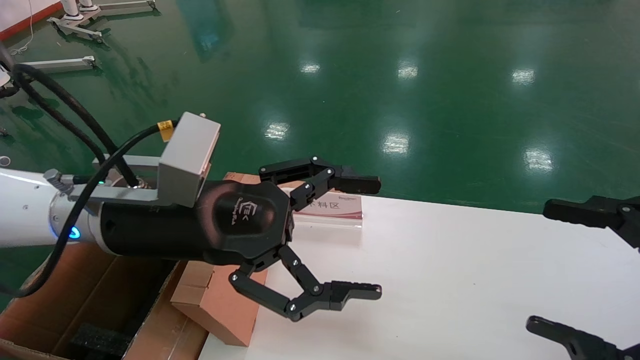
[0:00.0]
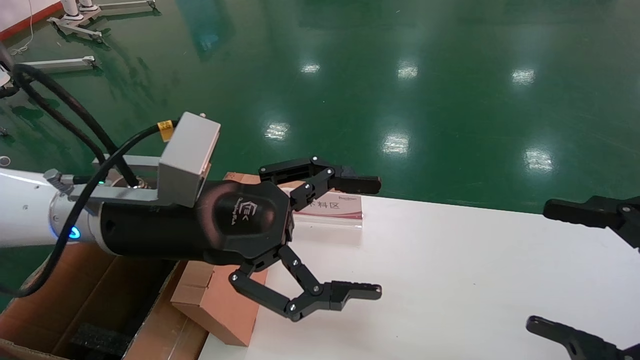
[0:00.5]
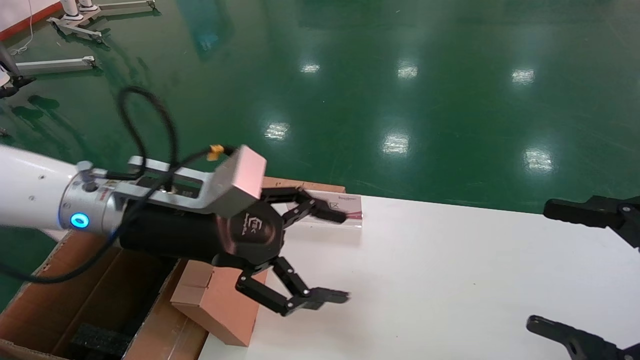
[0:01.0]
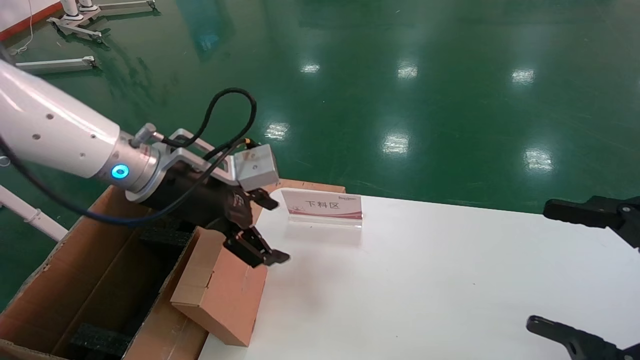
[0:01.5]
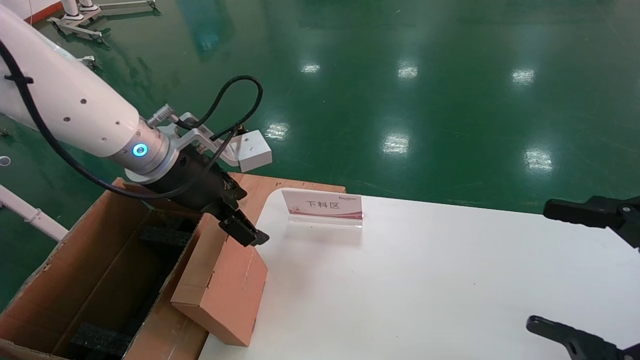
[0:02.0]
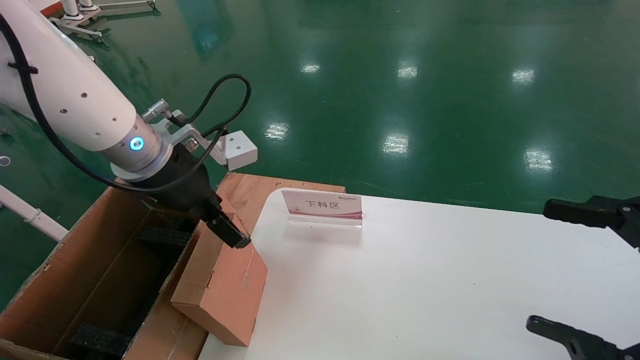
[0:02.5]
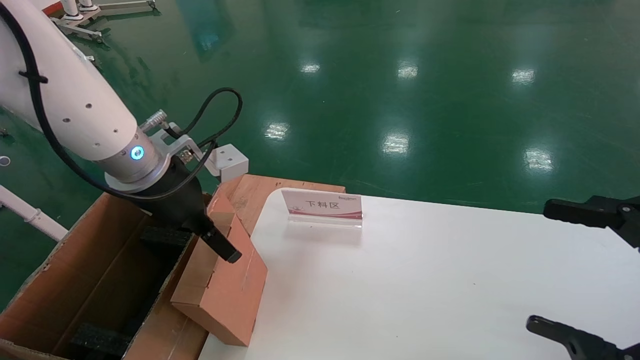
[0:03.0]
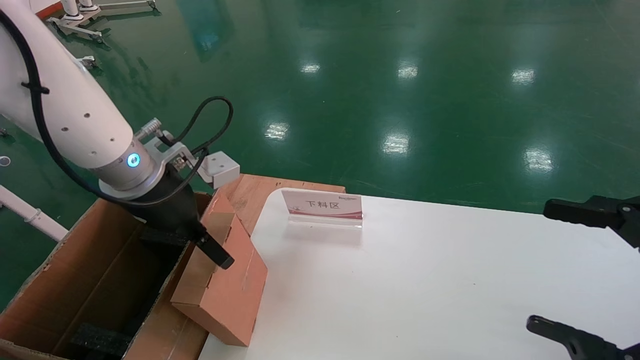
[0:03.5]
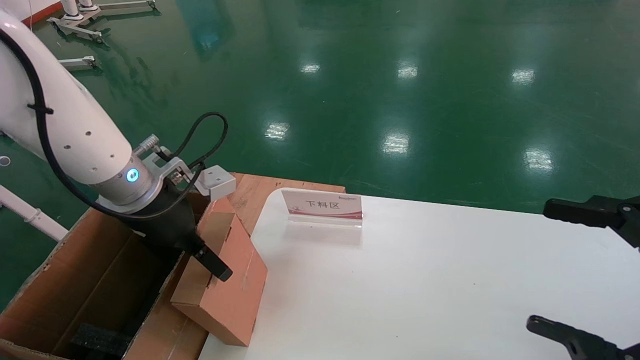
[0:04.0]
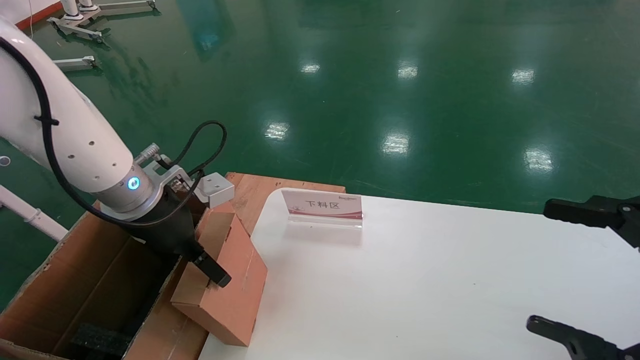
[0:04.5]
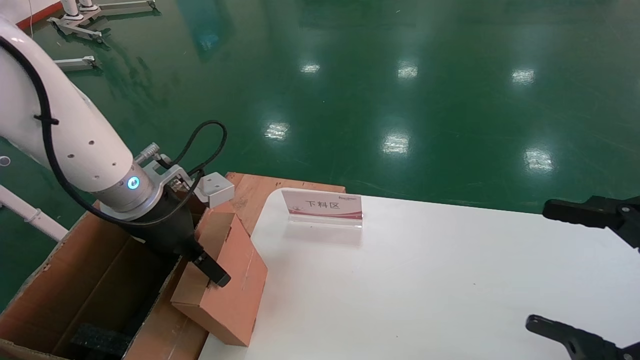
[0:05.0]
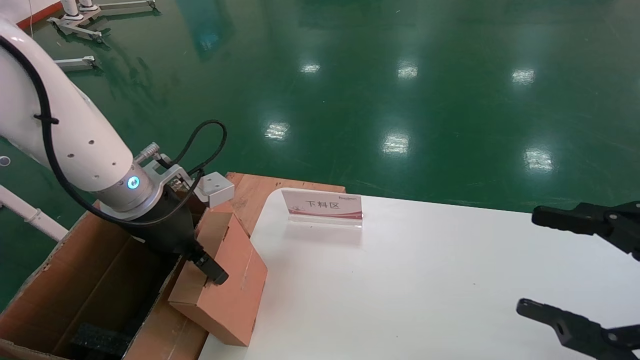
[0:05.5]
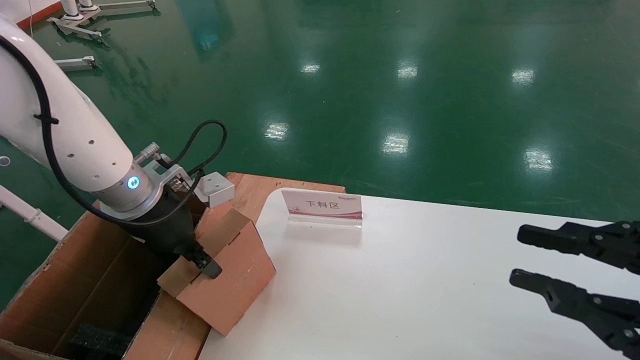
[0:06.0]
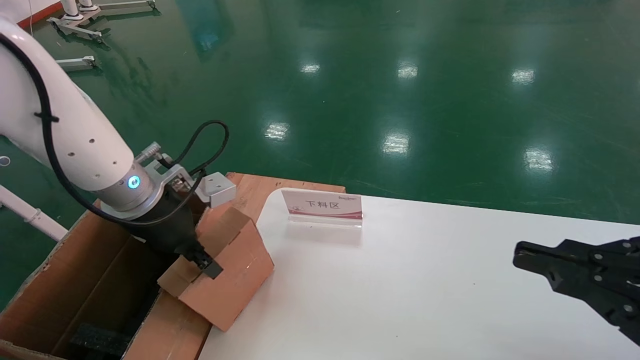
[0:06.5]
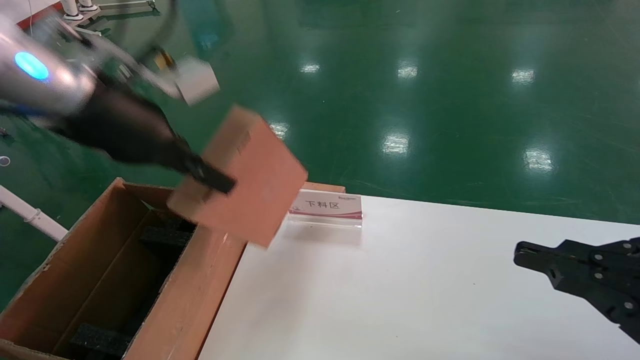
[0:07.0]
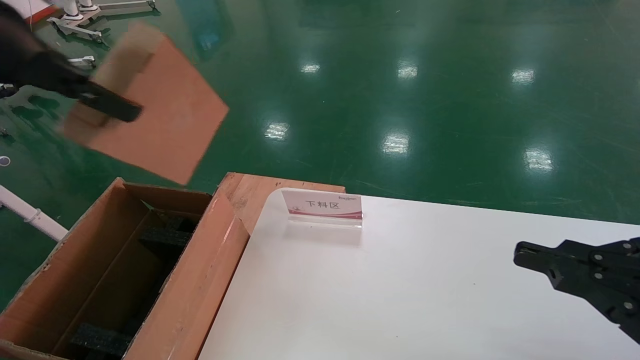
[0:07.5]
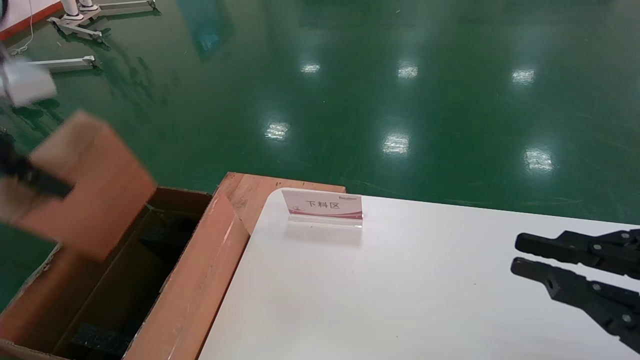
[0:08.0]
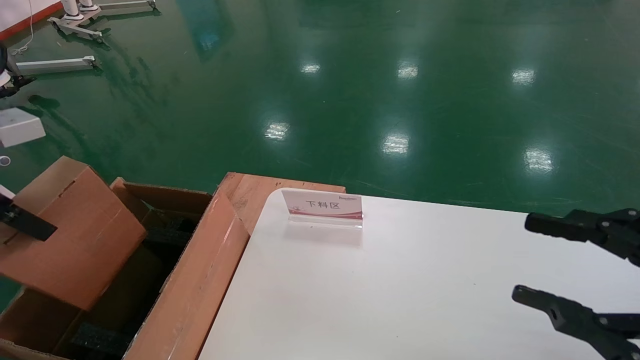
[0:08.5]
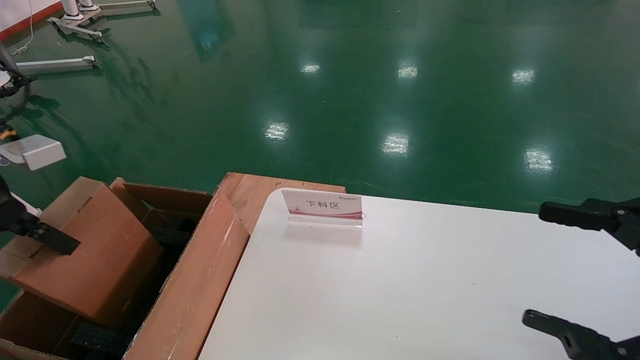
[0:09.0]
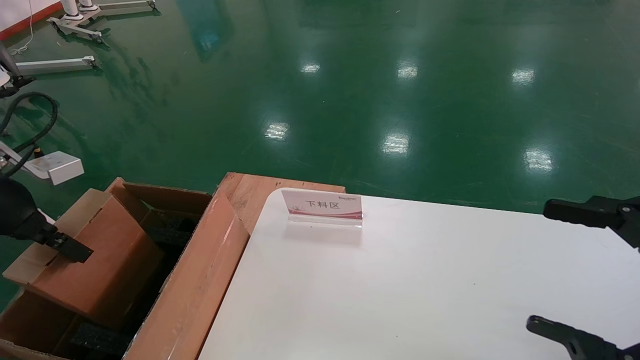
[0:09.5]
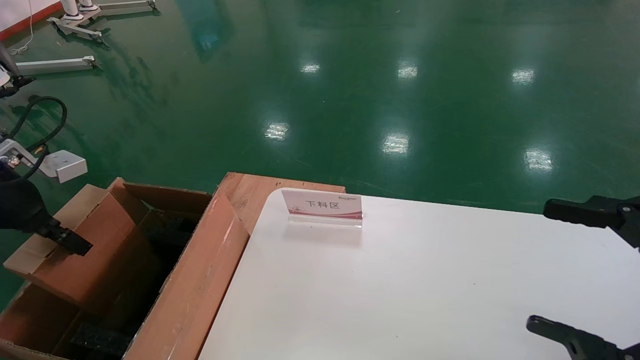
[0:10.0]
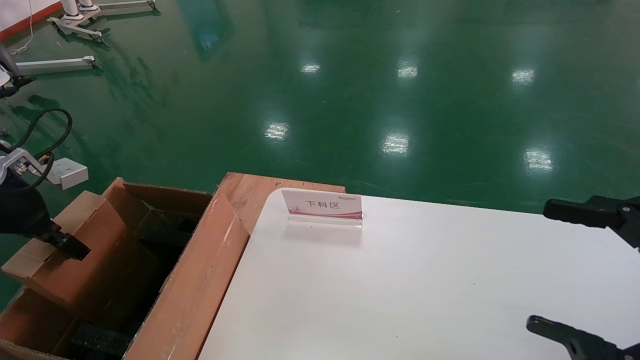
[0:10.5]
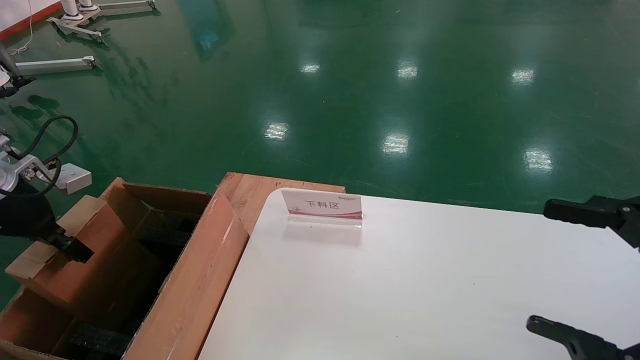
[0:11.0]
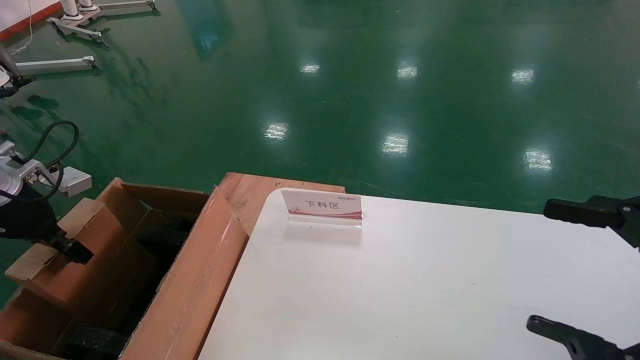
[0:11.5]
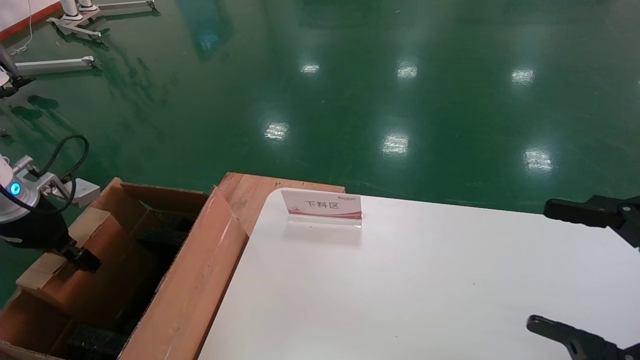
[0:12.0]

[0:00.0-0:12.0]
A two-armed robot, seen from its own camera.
Task of the whole recording: pick up the small cardboard box and load it into the large cardboard box.
Step, 0:01.0 to 0:06.0: Pick up the mouse and power cord box.
0:00.0 to 0:02.0: The left gripper is displaced forward by about 10 cm.
0:04.0 to 0:06.0: The left gripper closes its fingers. Meanwhile the right gripper closes its fingers.
0:06.0 to 0:08.0: The left gripper heads upward, to the left and backward, covering about 25 cm, and closes up.
0:08.0 to 0:10.0: The left gripper heads downward, to the left and forward, covering roughly 15 cm. Meanwhile the right gripper opens up.
0:10.0 to 0:12.0: The left gripper goes roughly 5 cm downward.

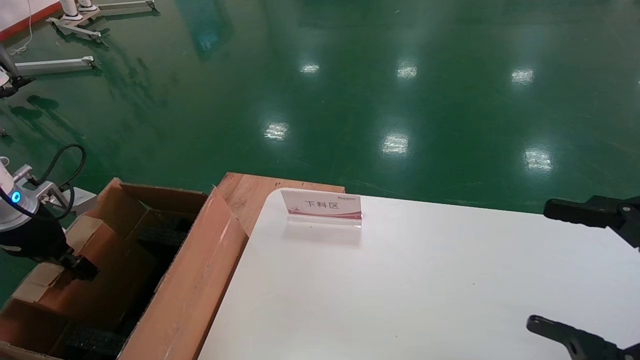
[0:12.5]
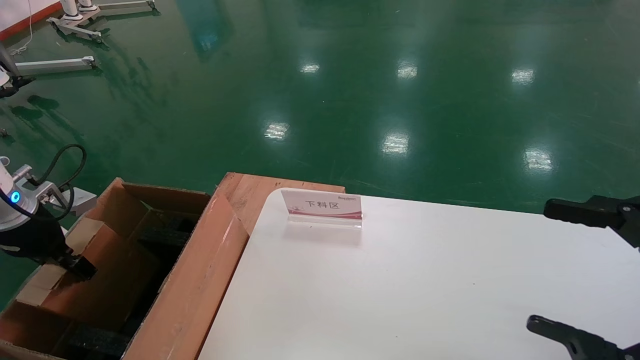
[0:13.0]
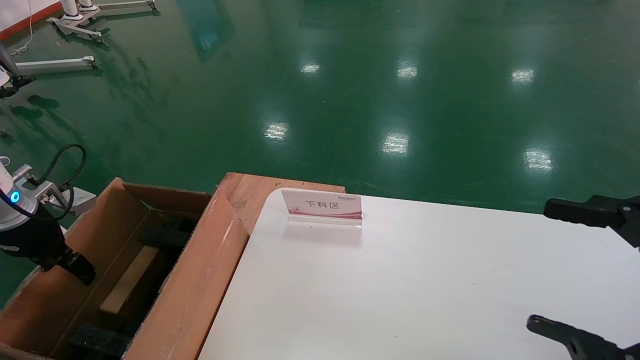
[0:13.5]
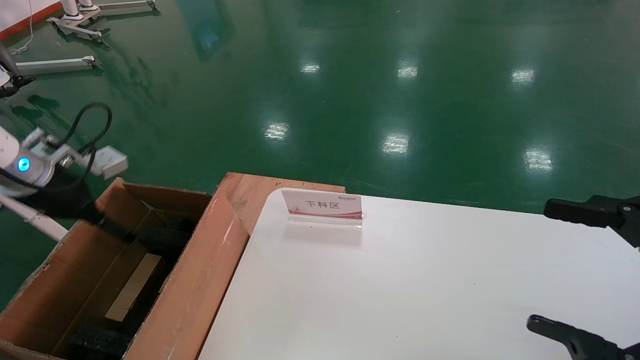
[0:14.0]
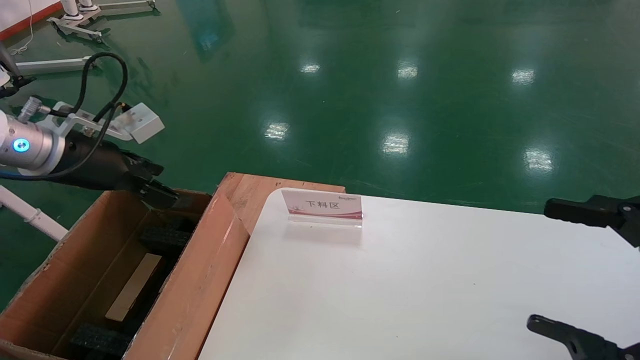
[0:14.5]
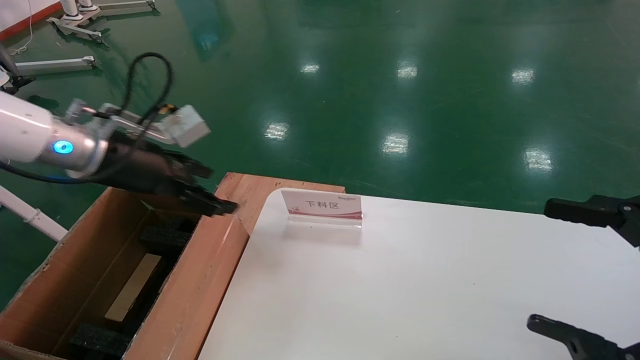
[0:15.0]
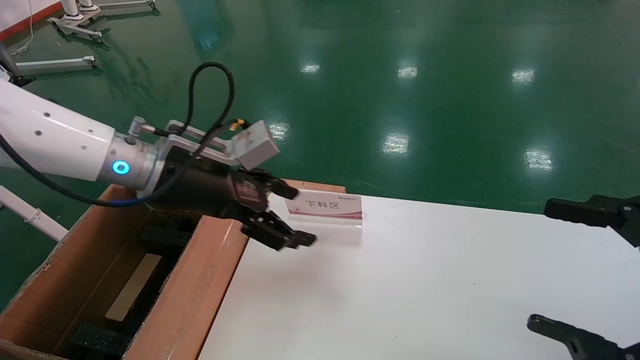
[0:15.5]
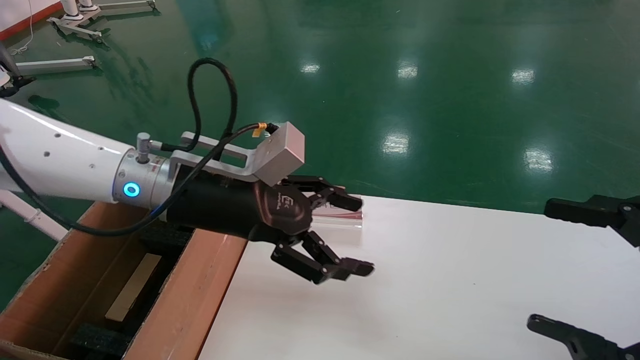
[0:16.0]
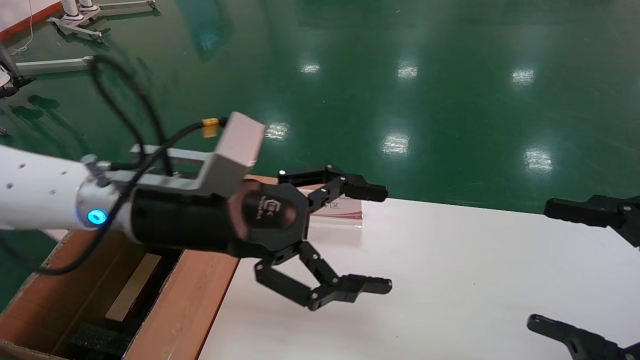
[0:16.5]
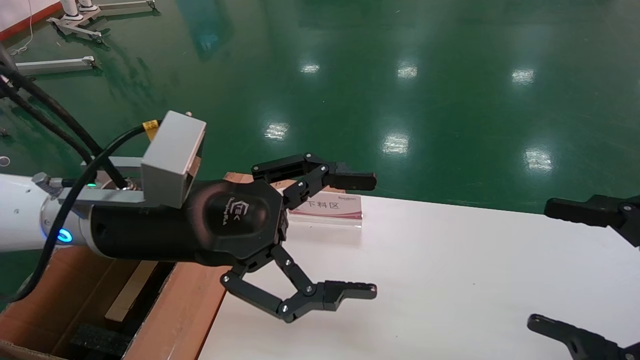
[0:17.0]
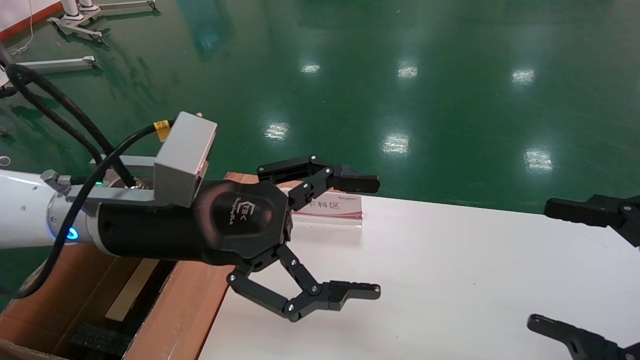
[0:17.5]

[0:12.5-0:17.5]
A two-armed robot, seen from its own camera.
Task of the whole recording: pick up the small cardboard box and load it into the large cardboard box.
Step, 0:12.5 to 0:14.5: Place the mouse and power cord box into the case.
0:12.5 to 0:15.0: The left gripper is displaced to the right and upward by roughly 20 cm, and opens its fingers.
0:15.0 to 0:17.5: The left gripper moves to the right and backward, approximately 15 cm.
